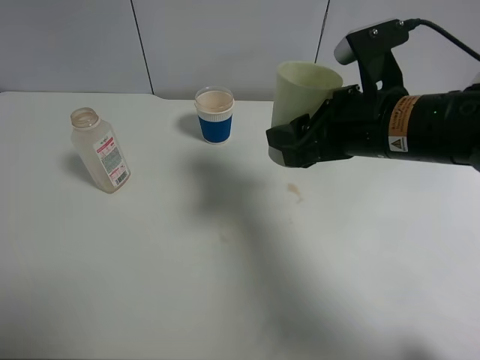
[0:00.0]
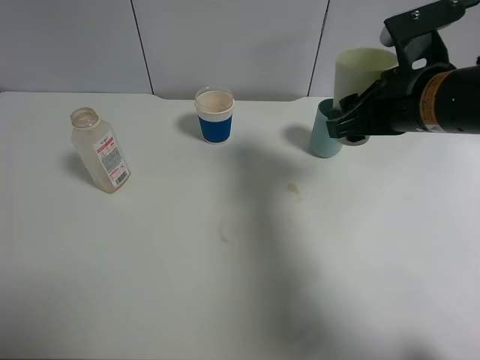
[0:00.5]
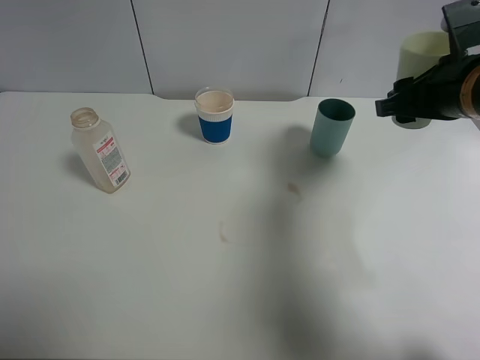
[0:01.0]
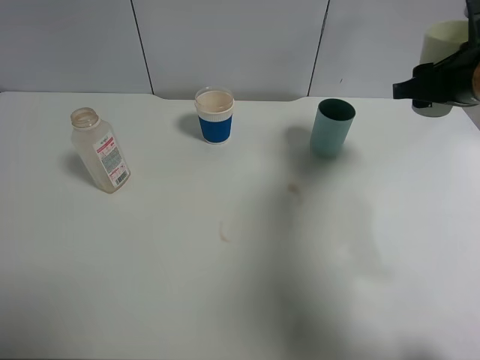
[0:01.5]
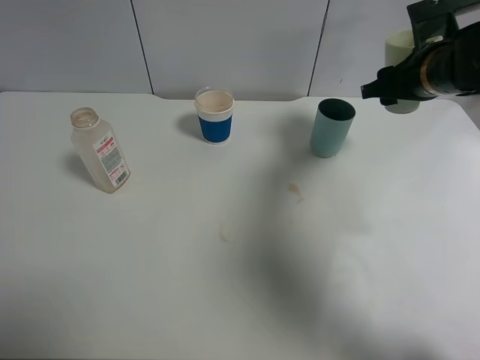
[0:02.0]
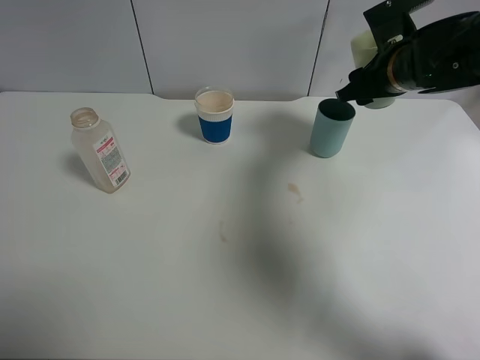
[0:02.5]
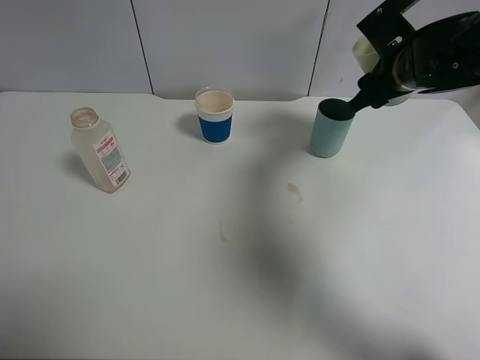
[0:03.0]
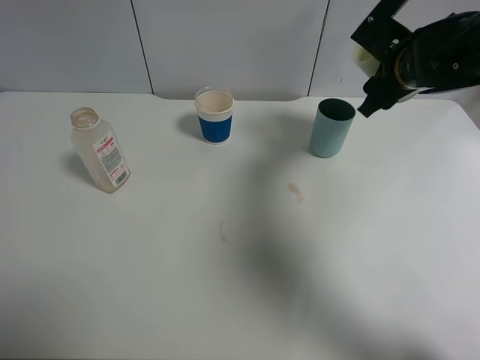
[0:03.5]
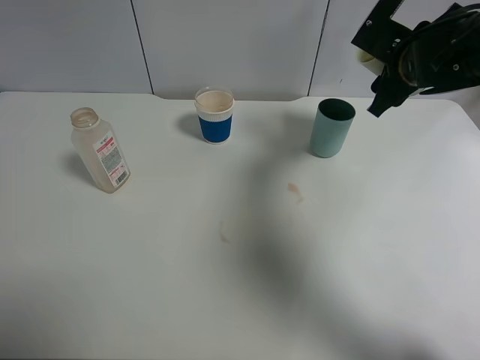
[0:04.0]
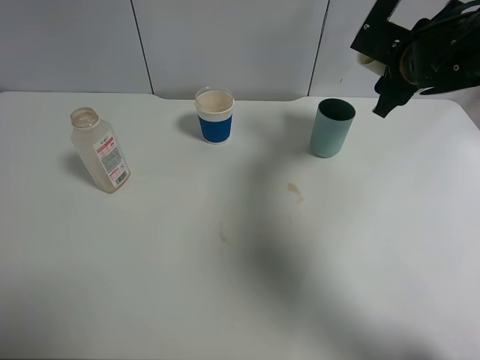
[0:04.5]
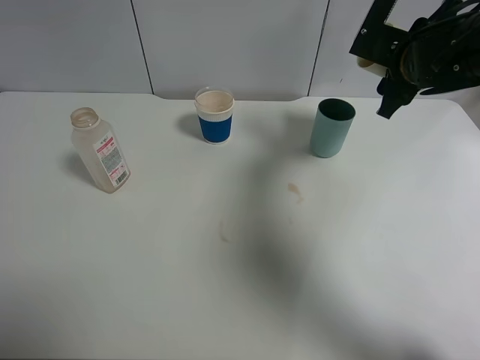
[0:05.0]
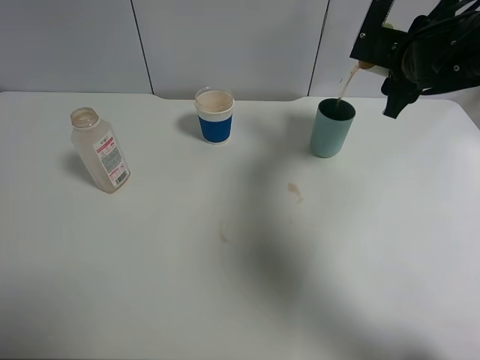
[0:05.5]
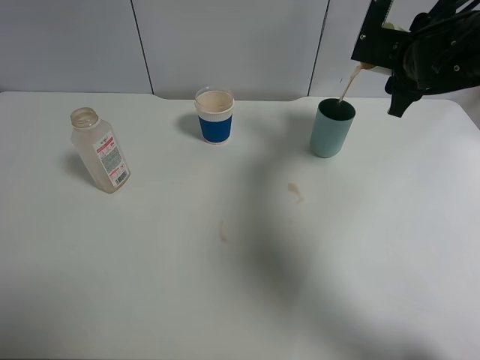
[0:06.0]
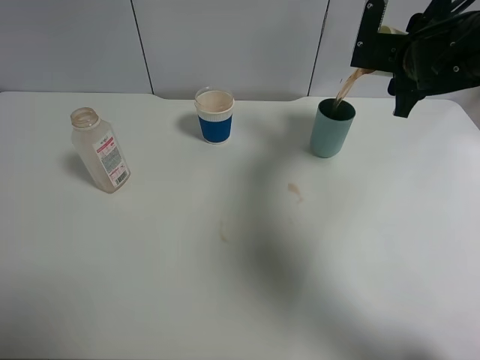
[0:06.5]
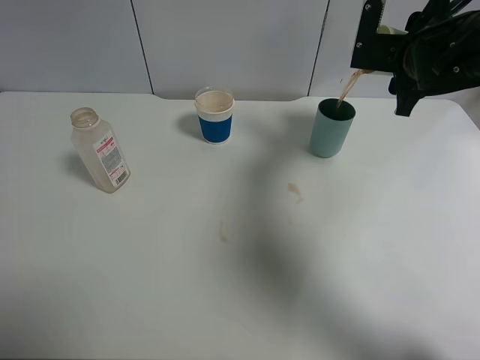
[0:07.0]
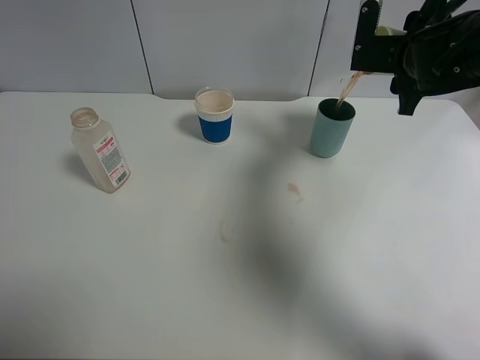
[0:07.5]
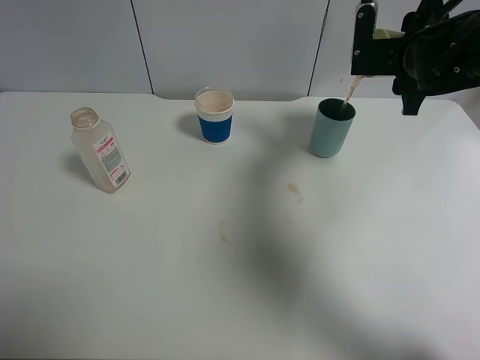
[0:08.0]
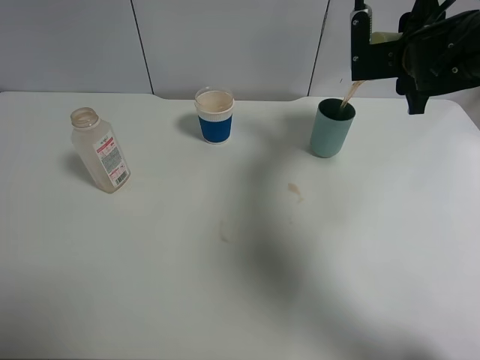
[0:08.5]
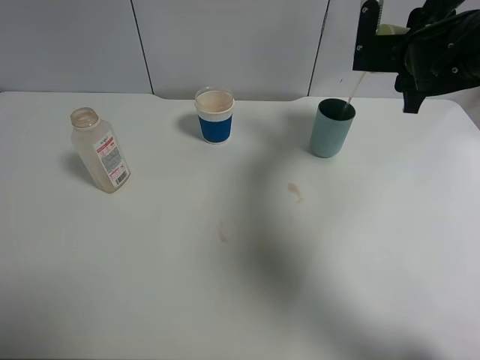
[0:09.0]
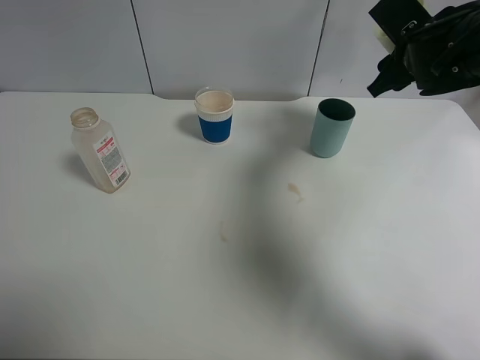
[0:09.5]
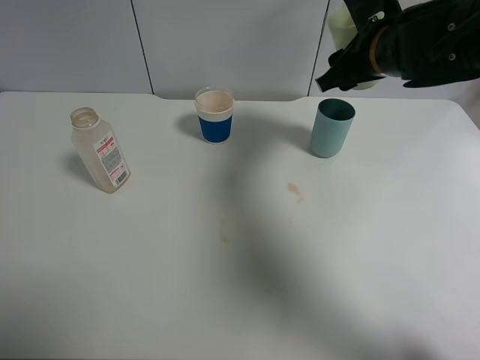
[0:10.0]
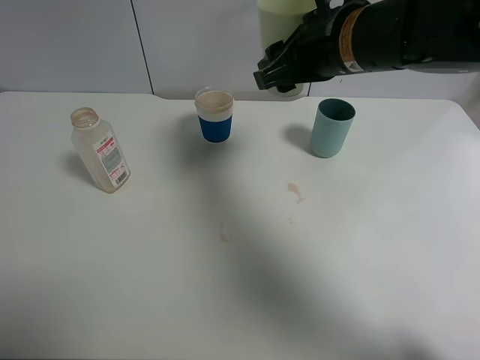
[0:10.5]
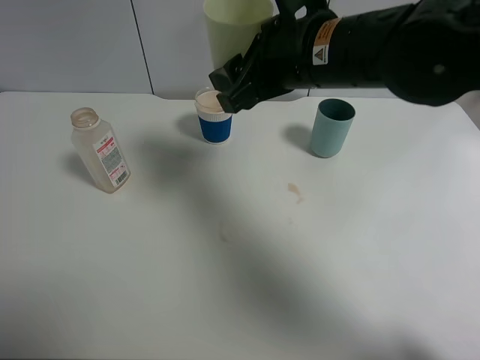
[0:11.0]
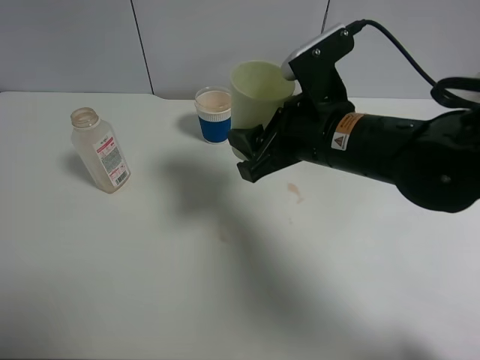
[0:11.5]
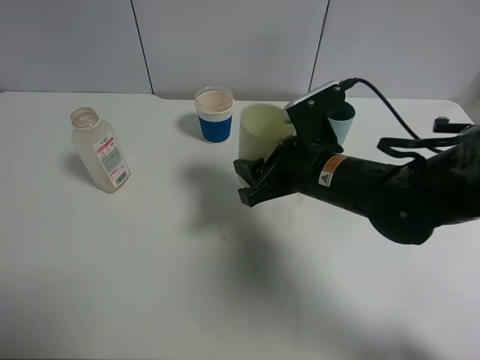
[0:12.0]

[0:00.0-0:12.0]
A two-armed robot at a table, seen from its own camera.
Task of the whole recording: use a clamp to hold the bottle of the drink, pour the beverage into a random cup, then clamp the cup containing the drink and pour the drink into another random cup.
Step, 0:00.0 to 0:09.0: Pour the drink into the blue plastic cup with right gripper.
0:00.0 to 0:02.0: The right gripper travels forward and to the right by roughly 15 cm.
0:04.0 to 0:06.0: The grippers stay close to where they were, moving slightly.
0:06.0 to 0:08.0: The grippers move only a little.
0:08.0 to 0:10.0: The right gripper heads to the left, covering roughly 5 cm.
0:10.0 to 0:12.0: The right gripper travels downward, backward and to the left by some 15 cm.

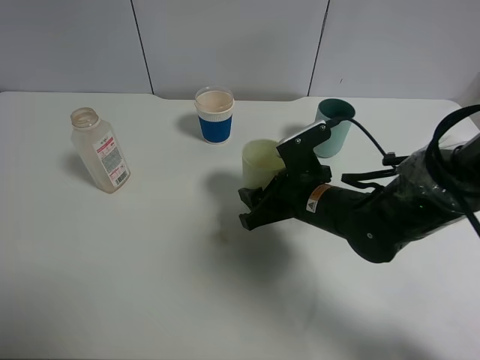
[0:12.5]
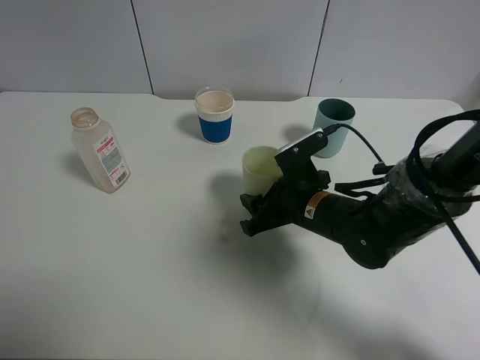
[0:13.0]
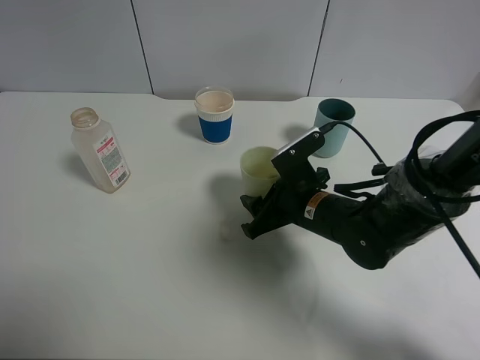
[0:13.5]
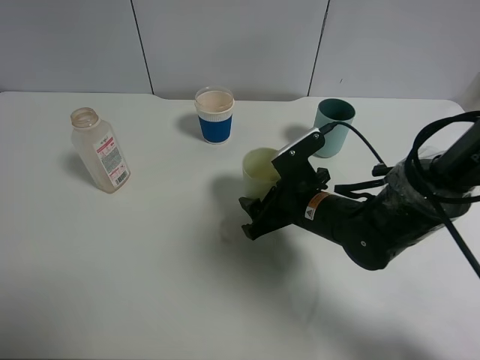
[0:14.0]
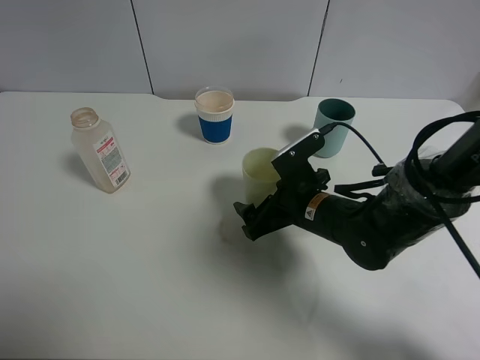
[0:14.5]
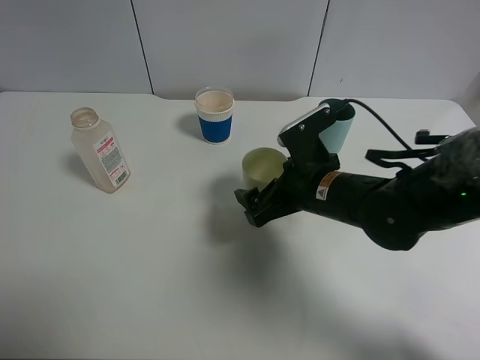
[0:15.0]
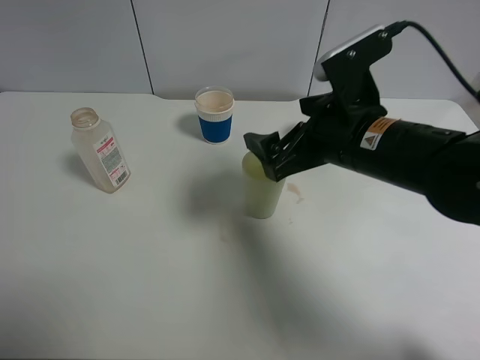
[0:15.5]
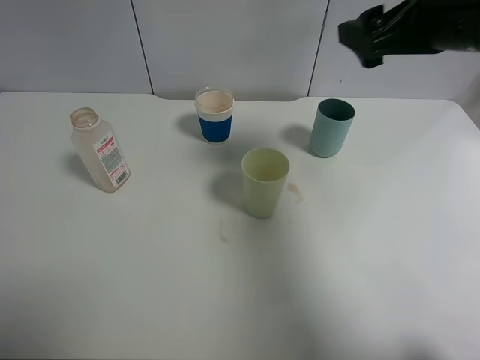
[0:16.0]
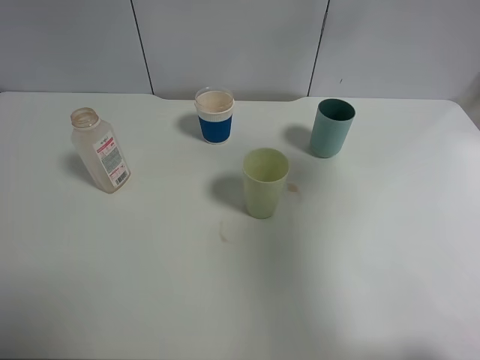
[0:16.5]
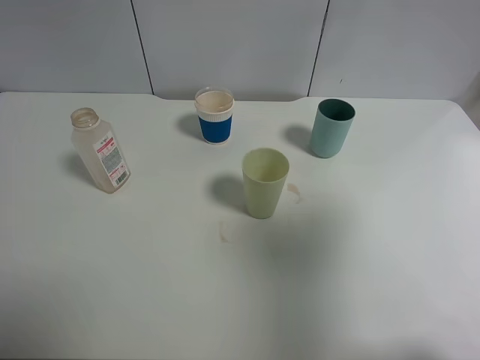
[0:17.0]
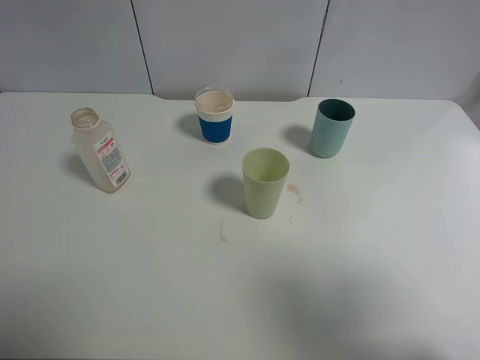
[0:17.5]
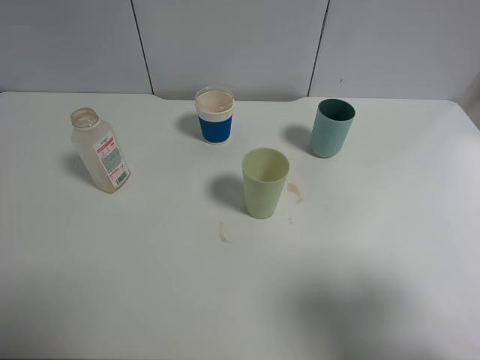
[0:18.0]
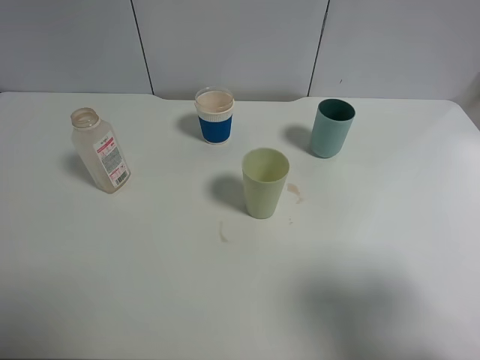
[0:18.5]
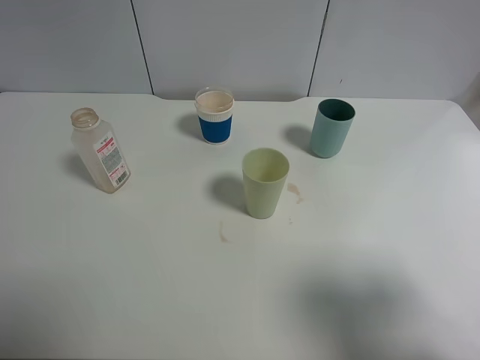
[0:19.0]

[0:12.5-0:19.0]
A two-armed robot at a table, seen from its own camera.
Task of the whole recording: use a clamp to hold the bottle of the drink, pour the beverage into a random cup, then clamp the cup containing the drink and pour the drink into another random cup.
Step, 0:12.5 to 0:14.5: Place the green plastic cup on the table with right gripper.
0:12.5 to 0:14.5: The right gripper opens up.
0:14.5 to 0:17.0: The right gripper shifts roughly 40 cm upward, backward and to the right.
0:17.0 to 0:19.0: The right gripper shifts roughly 10 cm downward.
